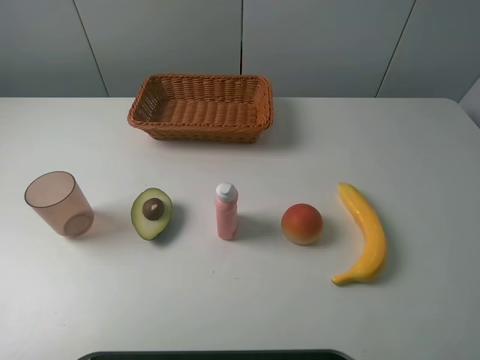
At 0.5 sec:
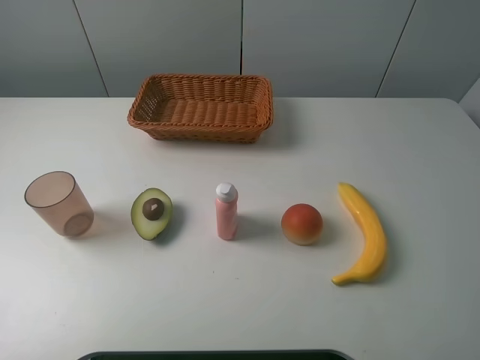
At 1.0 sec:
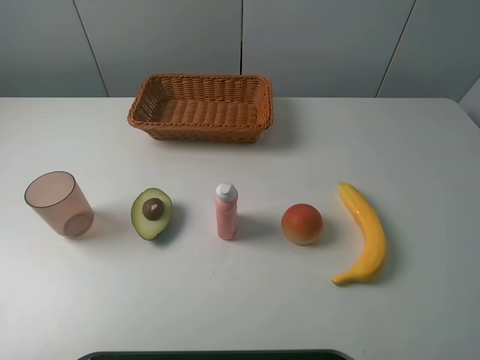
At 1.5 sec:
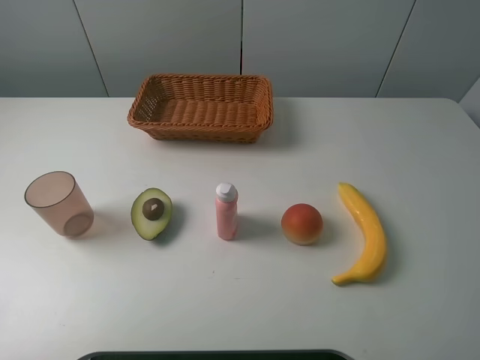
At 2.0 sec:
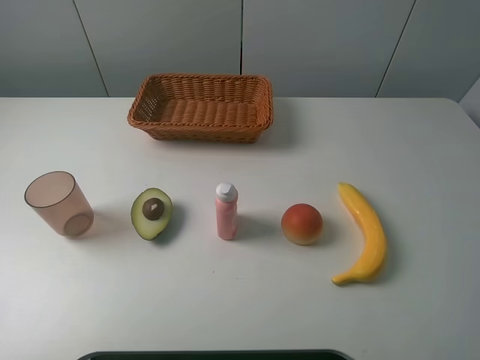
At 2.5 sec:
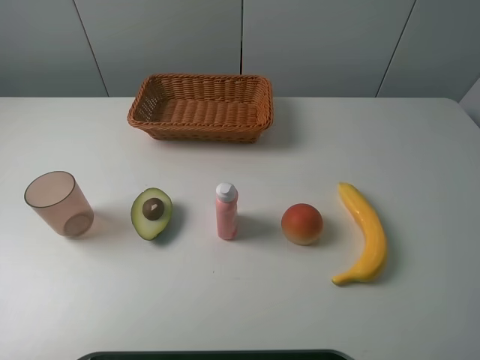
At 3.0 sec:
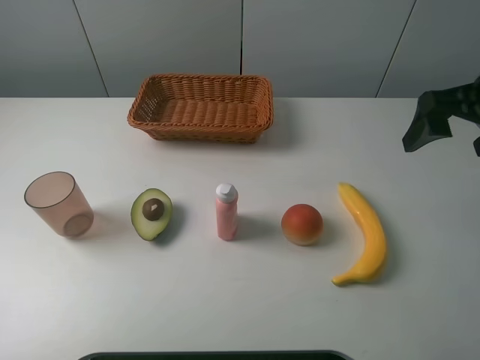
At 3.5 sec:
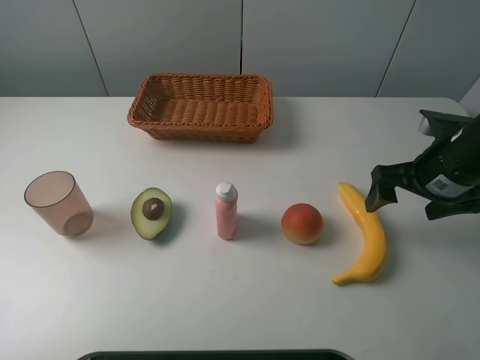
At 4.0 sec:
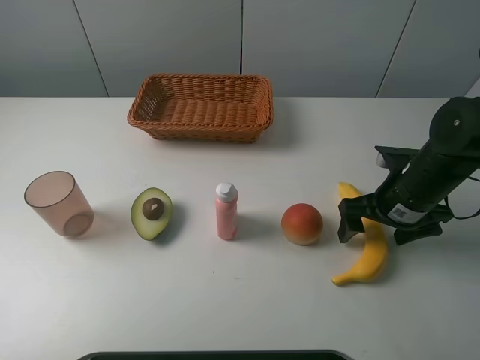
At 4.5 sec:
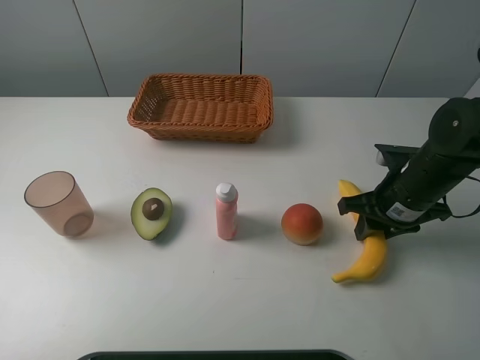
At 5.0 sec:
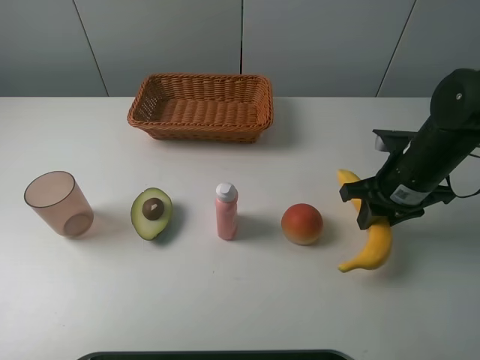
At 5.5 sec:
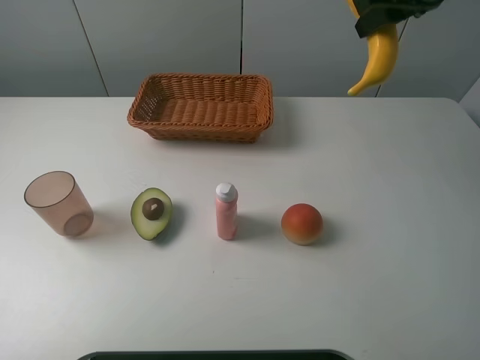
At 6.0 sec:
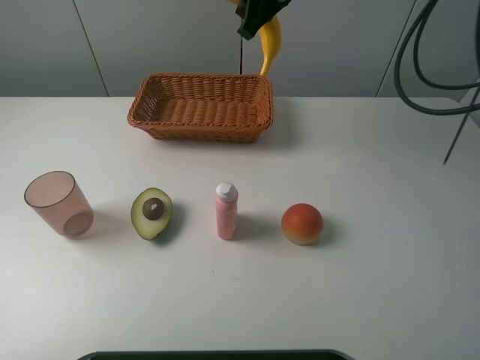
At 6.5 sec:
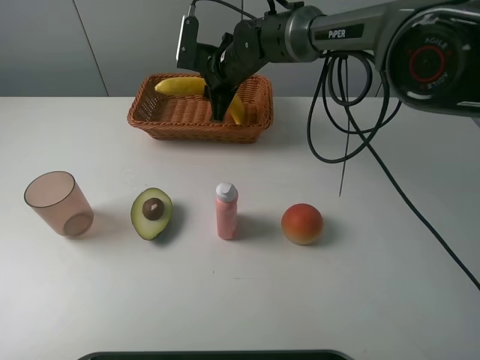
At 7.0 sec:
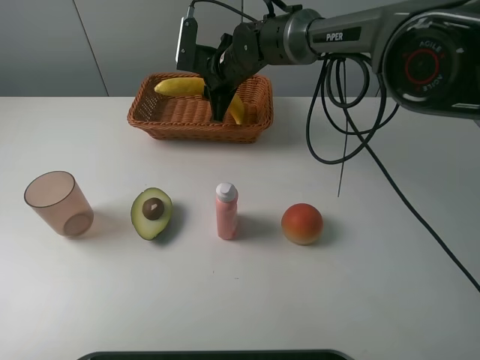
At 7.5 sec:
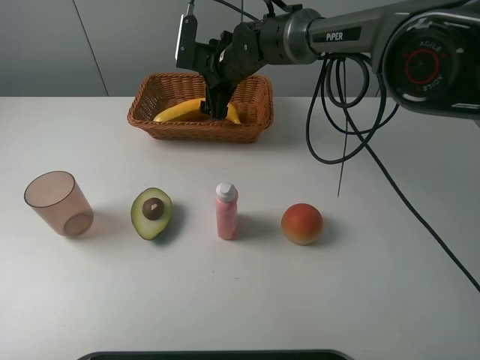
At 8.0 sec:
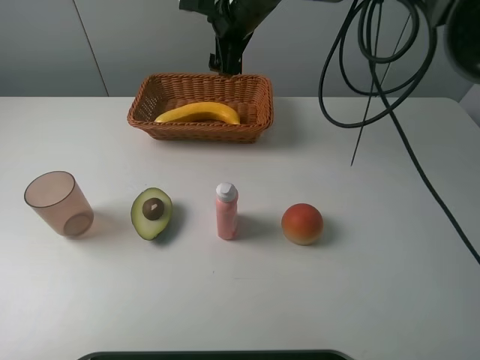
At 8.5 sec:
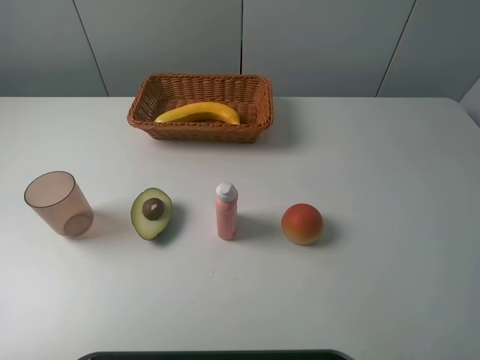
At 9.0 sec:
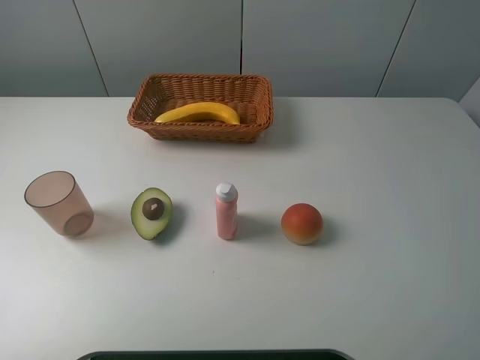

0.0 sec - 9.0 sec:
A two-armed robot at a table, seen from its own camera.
Task of the whole recording: randomly pick up an item from the table and put it in the basket.
Step, 0.0 sec - 4.5 sec: Grasp the banana with the right gripper.
Step, 5.0 sec - 7.5 sec: Place the banana into the basket with the right gripper.
2.0 sec - 4.5 sec: The right gripper shifts some 30 cm forward and downward, and closes its fingers.
4.5 sec - 7.0 sec: The right gripper travels to the left and forward by some 30 cm.
7.0 sec - 9.0 sec: The right gripper is displaced to the right, backward and upward by roughly 50 cm, and opens its fingers.

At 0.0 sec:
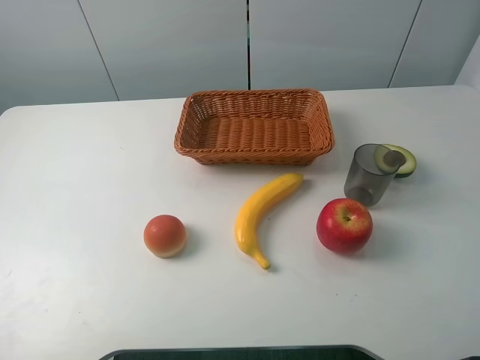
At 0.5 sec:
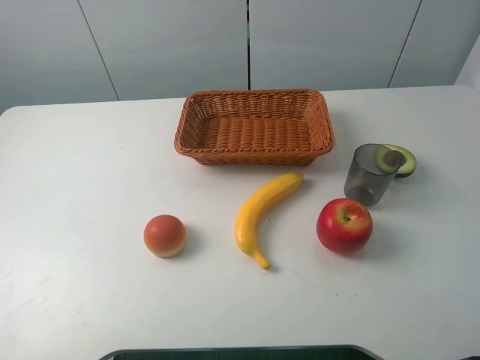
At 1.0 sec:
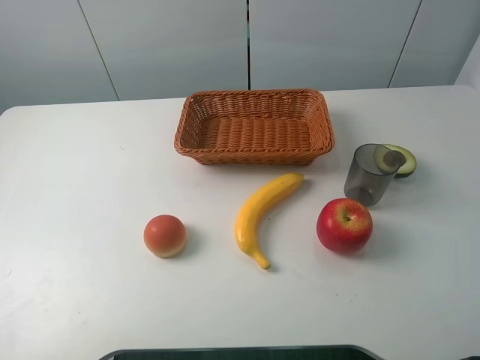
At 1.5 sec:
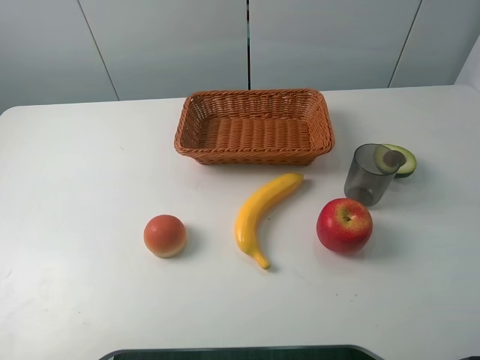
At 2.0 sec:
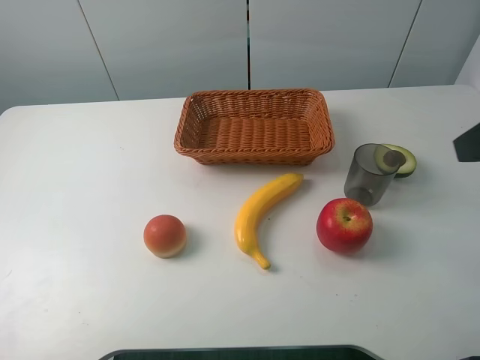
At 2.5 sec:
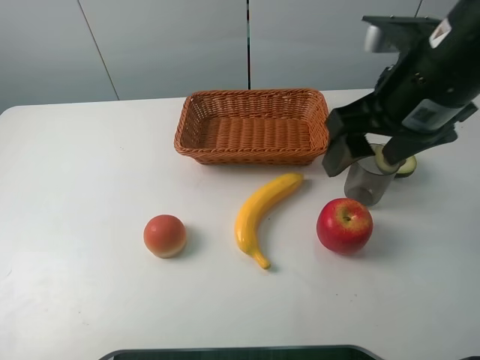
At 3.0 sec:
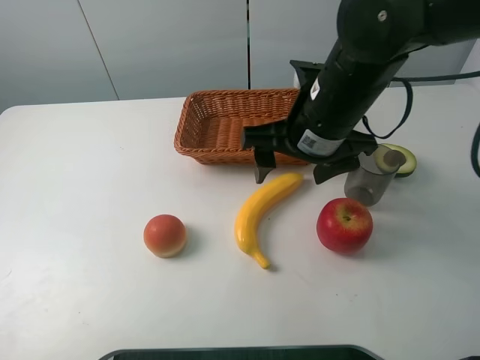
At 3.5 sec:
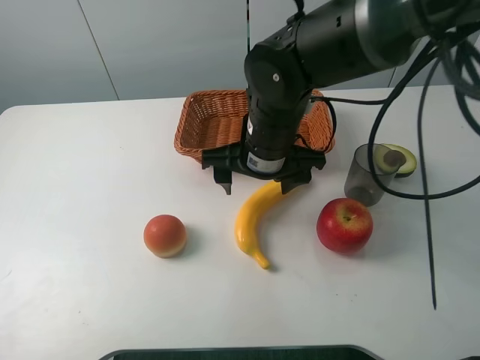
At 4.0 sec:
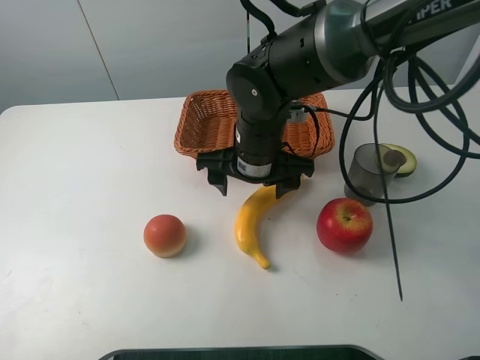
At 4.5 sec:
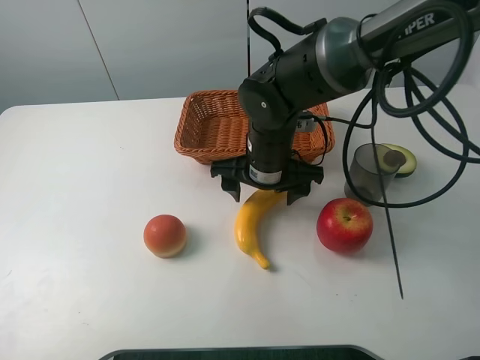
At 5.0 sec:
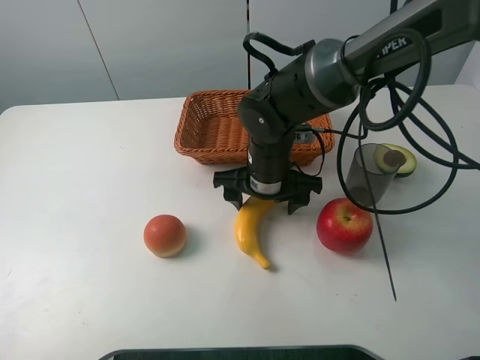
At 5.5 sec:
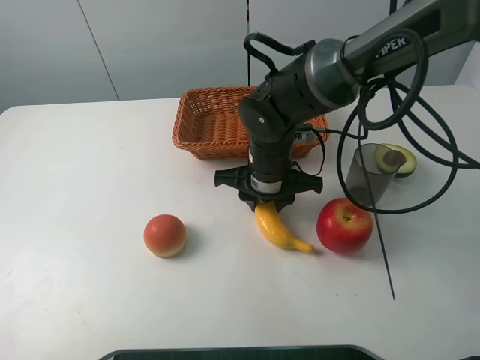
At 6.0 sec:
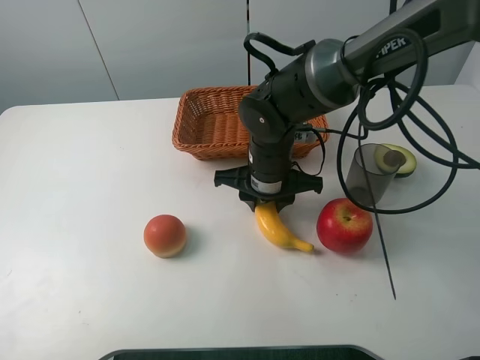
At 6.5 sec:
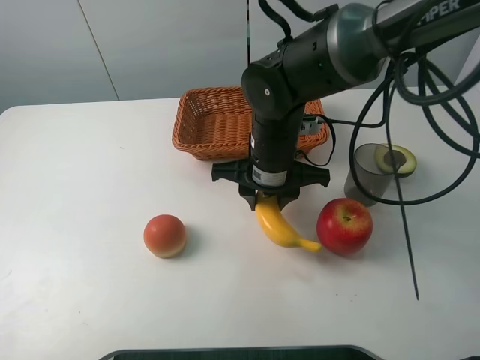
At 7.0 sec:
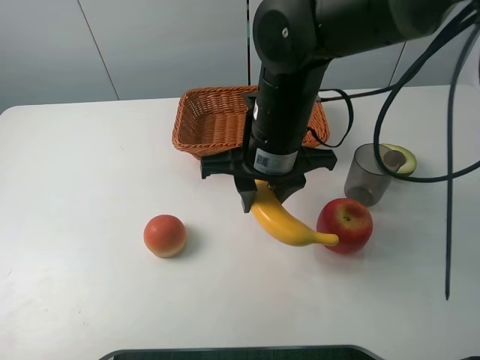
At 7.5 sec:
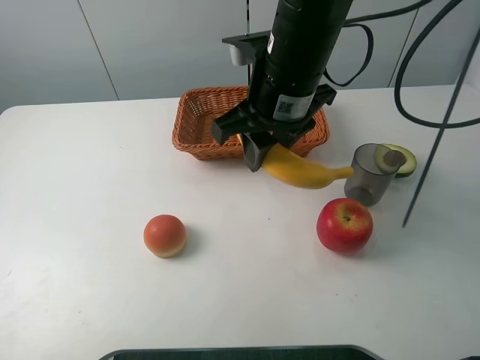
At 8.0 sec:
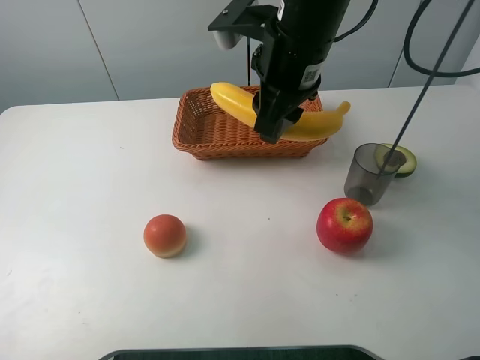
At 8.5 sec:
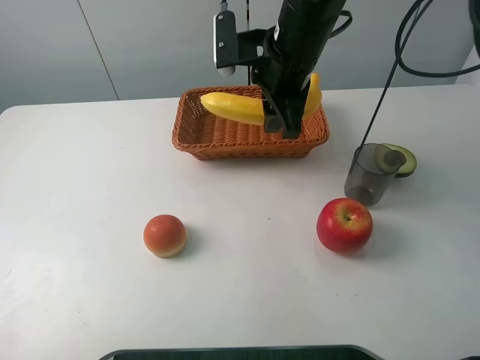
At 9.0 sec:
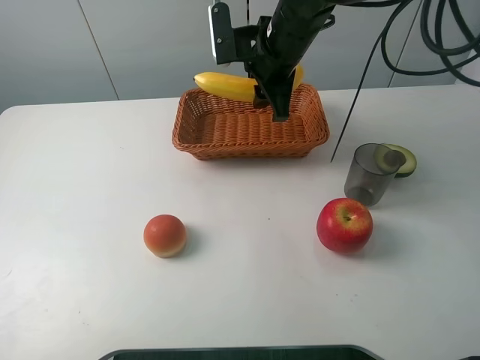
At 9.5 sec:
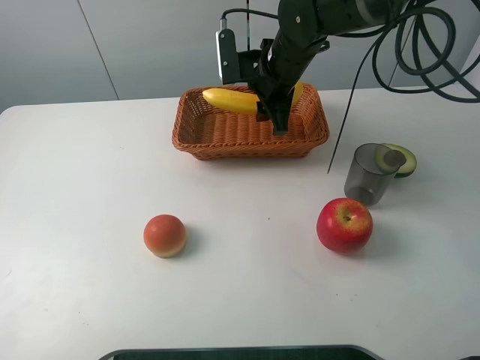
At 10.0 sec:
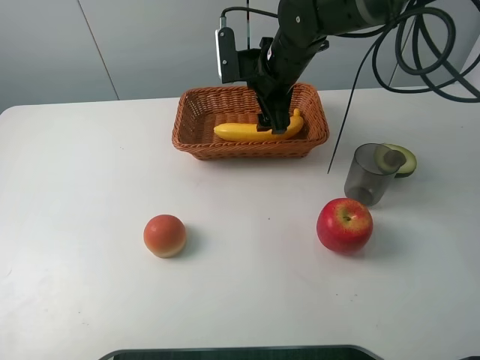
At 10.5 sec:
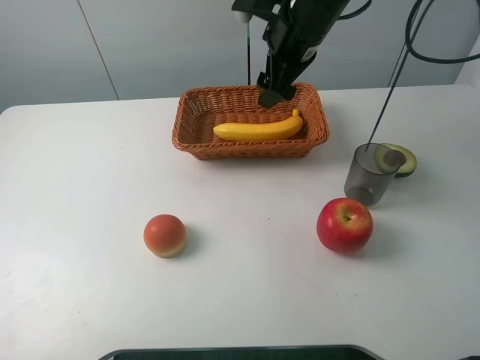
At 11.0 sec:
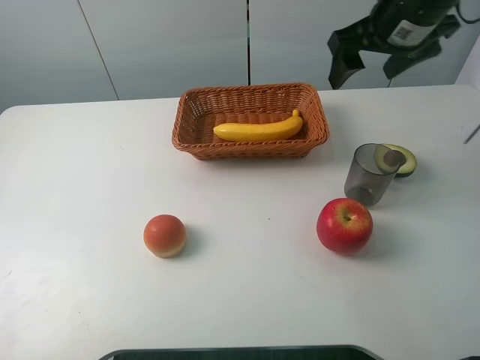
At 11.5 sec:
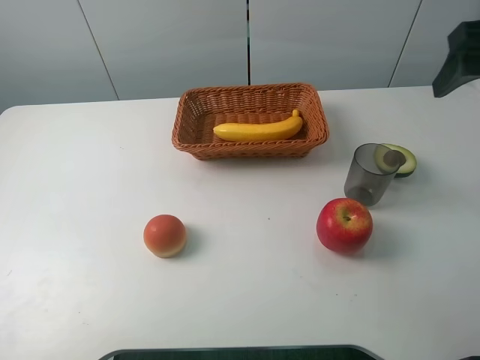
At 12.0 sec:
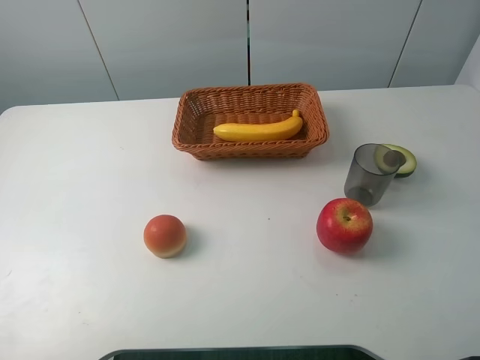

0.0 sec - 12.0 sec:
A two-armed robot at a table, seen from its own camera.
Task of the whole recording: randomly pick up an item from the table and put it in the basket.
Step, 0.0 sec - 5.5 sec: Grasp the banana with the right gripper.
Step, 6.0 sec - 10.0 sec: Place the banana into the basket with the right gripper.
2.0 sec - 4.0 sec: The right gripper moves to the left, downward and forward, about 30 cm.
4.0 sec - 6.0 sec: The right gripper closes its fingers.
6.0 sec - 8.0 sec: The right gripper is displaced upward by some 15 cm.
8.0 sec - 10.0 sec: The right gripper goes roughly 15 cm forward and downward, and opens up.
10.0 sec - 12.0 sec: The right gripper travels backward, to the right and upward by approximately 40 cm.

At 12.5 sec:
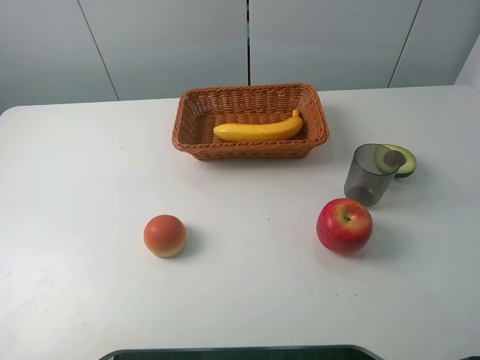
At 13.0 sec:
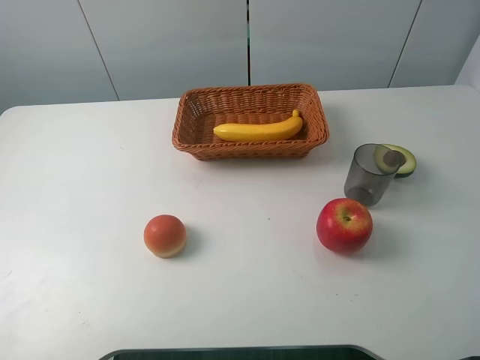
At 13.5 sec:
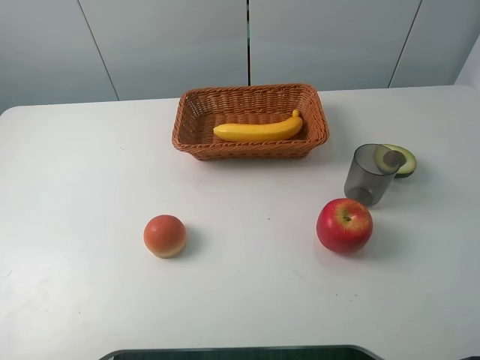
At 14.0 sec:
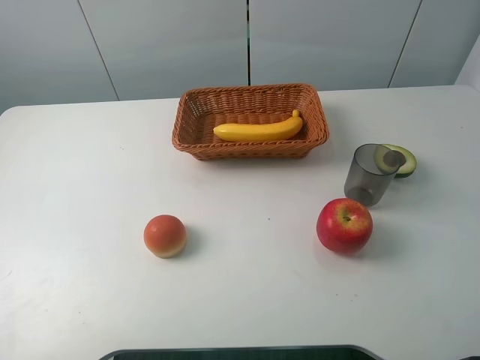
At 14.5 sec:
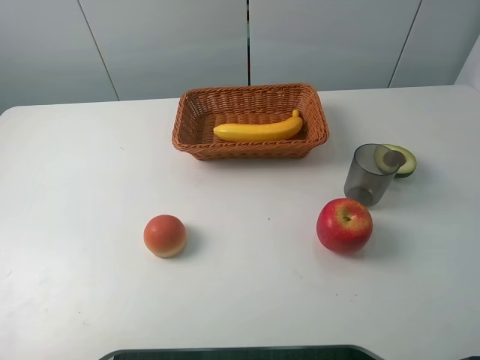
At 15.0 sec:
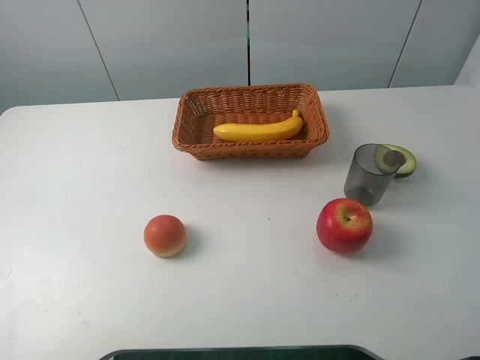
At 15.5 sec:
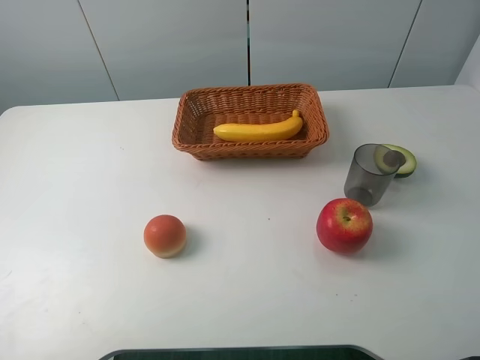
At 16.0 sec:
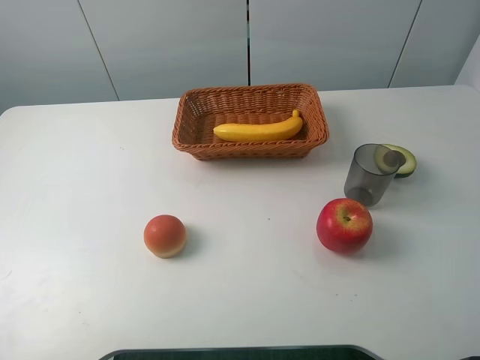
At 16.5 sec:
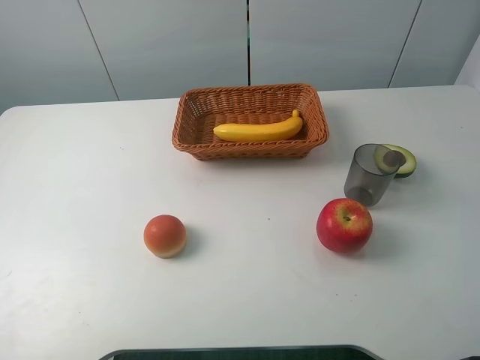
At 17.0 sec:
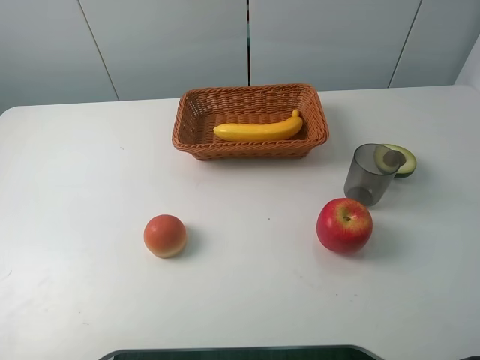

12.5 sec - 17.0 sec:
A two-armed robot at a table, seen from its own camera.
Task of the whole recording: randomly pick up an item from the table and put it in the basket.
14.5 sec - 17.0 sec: Neither gripper changes place.
